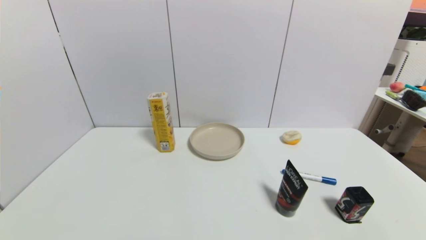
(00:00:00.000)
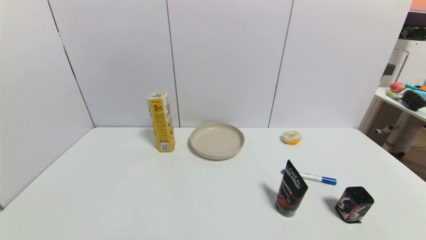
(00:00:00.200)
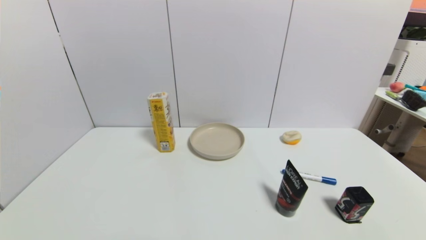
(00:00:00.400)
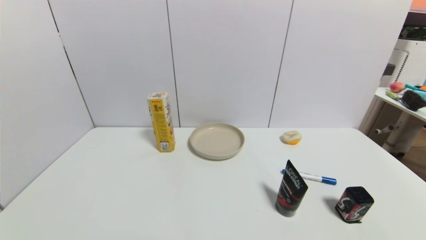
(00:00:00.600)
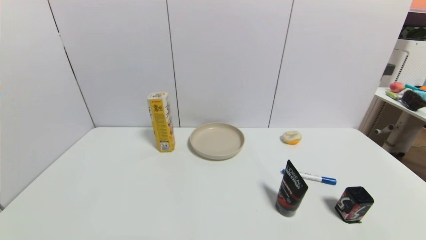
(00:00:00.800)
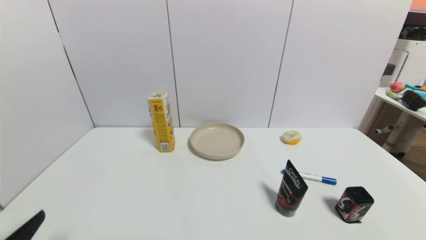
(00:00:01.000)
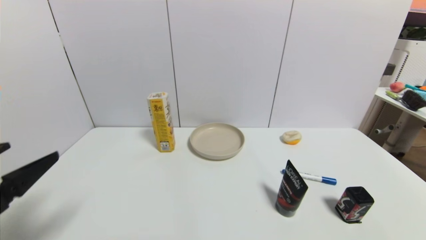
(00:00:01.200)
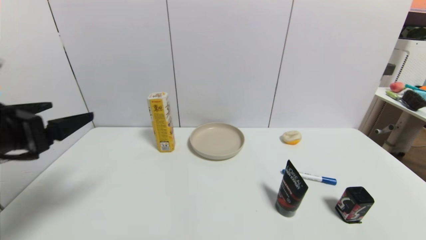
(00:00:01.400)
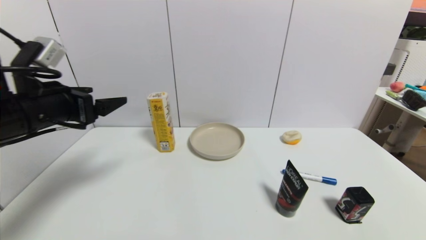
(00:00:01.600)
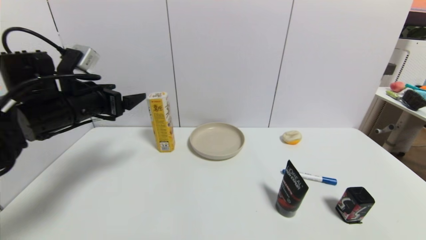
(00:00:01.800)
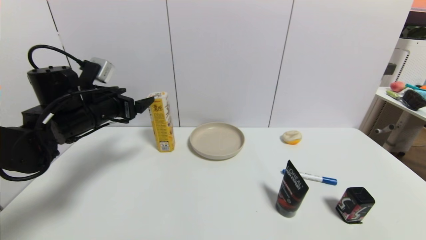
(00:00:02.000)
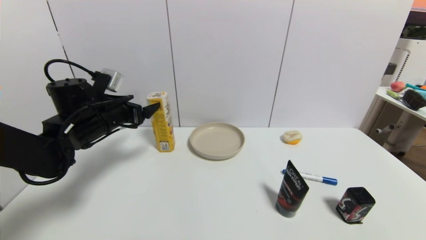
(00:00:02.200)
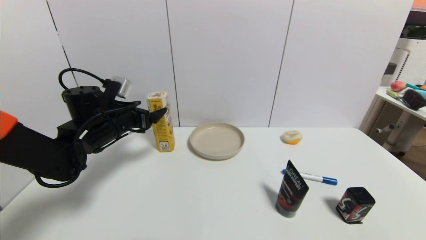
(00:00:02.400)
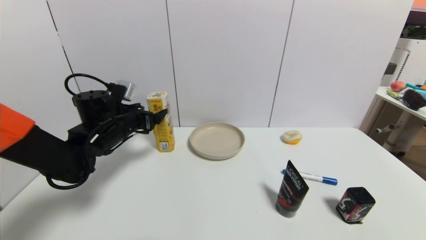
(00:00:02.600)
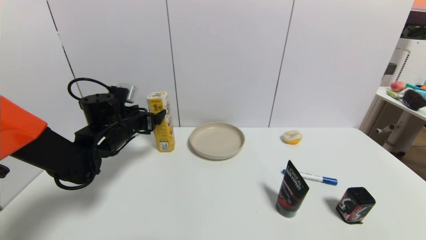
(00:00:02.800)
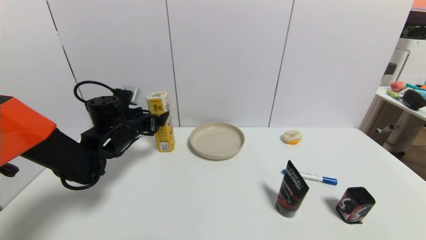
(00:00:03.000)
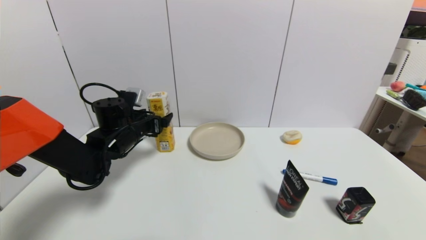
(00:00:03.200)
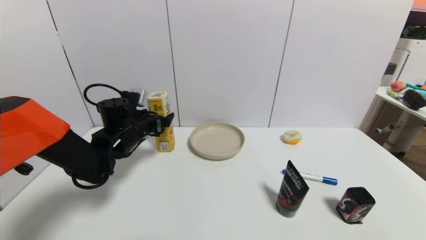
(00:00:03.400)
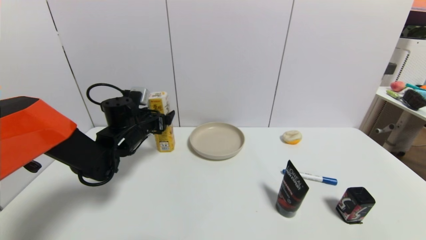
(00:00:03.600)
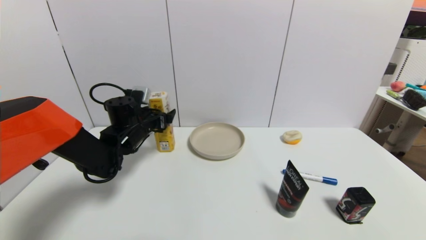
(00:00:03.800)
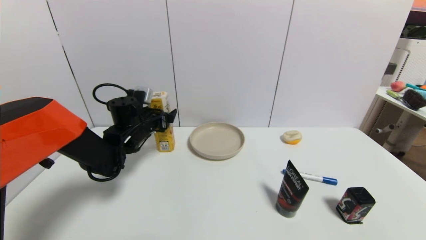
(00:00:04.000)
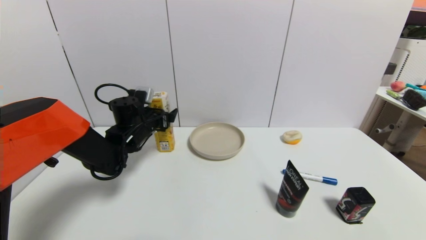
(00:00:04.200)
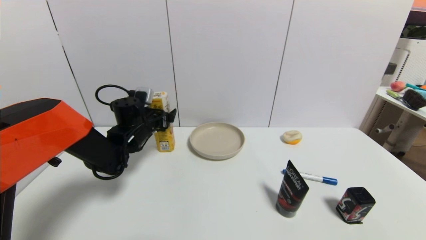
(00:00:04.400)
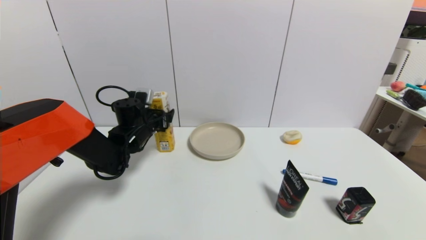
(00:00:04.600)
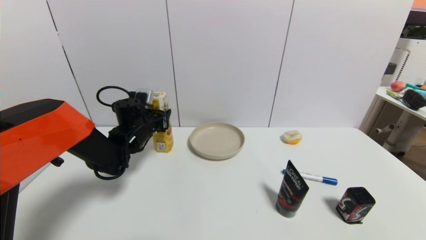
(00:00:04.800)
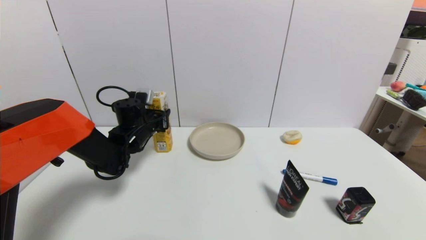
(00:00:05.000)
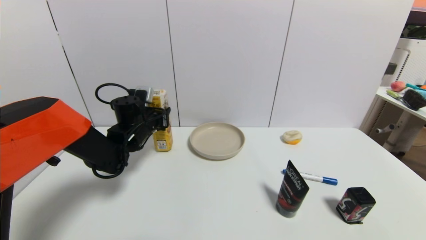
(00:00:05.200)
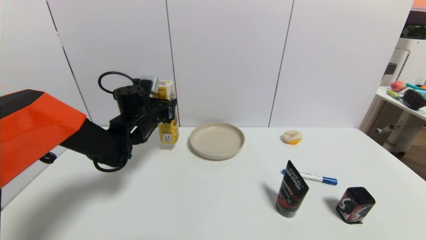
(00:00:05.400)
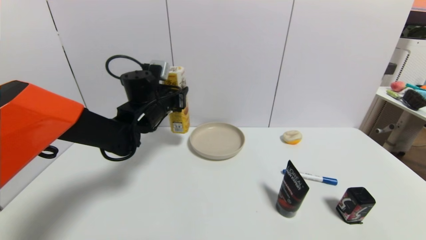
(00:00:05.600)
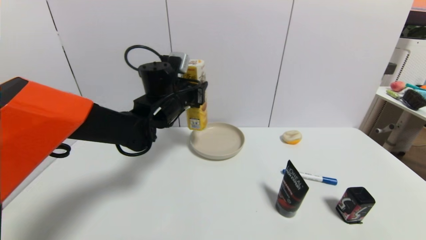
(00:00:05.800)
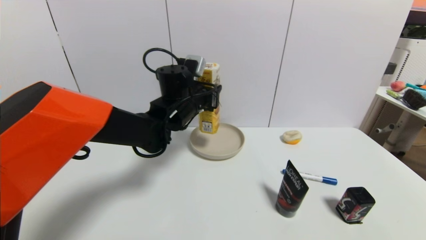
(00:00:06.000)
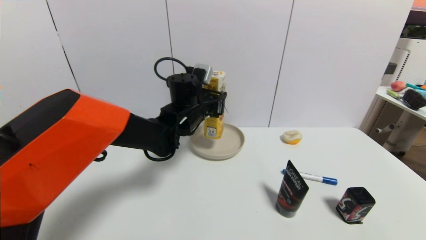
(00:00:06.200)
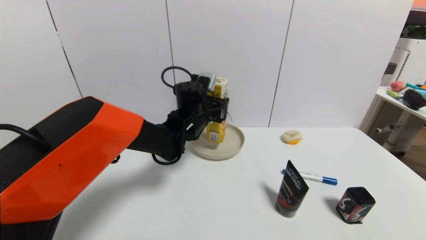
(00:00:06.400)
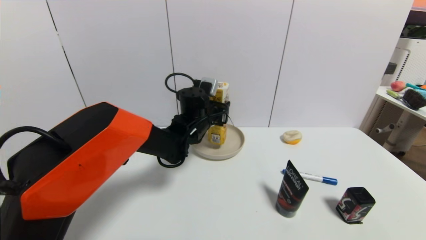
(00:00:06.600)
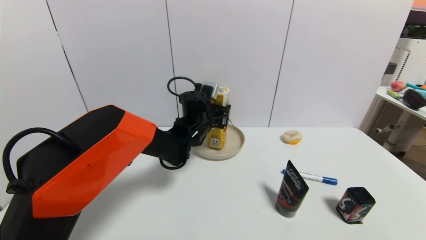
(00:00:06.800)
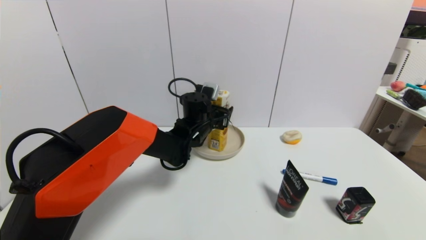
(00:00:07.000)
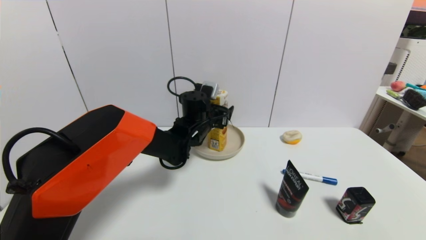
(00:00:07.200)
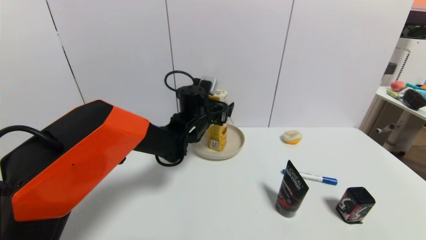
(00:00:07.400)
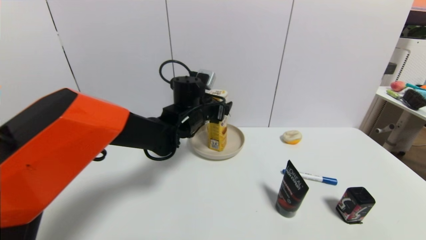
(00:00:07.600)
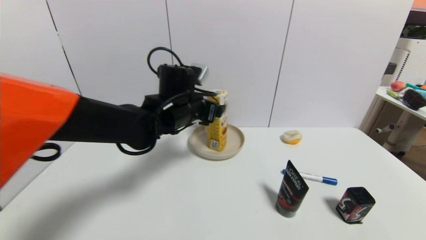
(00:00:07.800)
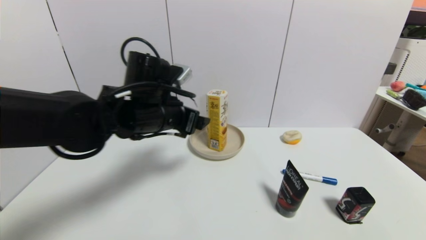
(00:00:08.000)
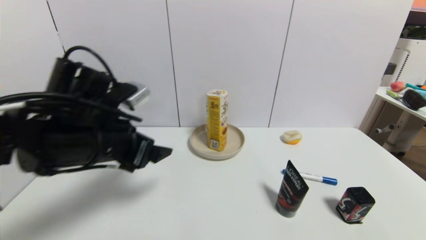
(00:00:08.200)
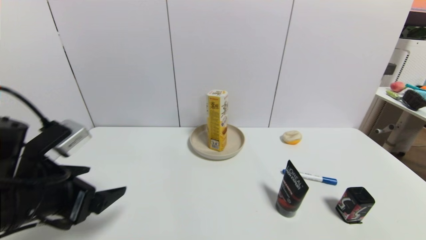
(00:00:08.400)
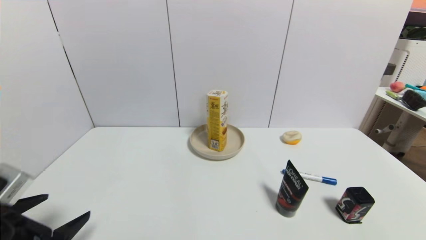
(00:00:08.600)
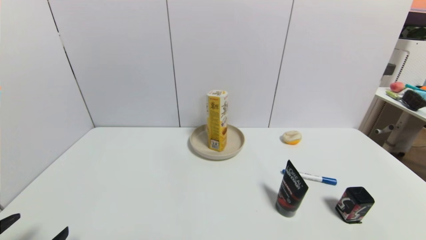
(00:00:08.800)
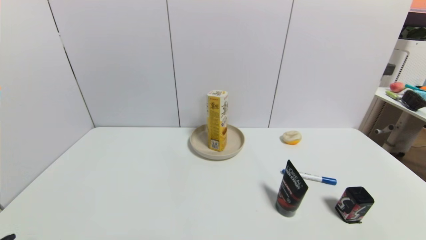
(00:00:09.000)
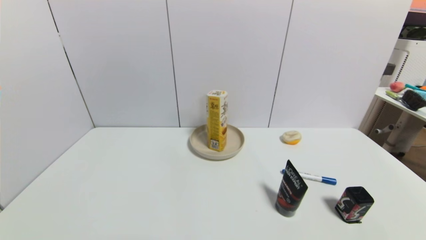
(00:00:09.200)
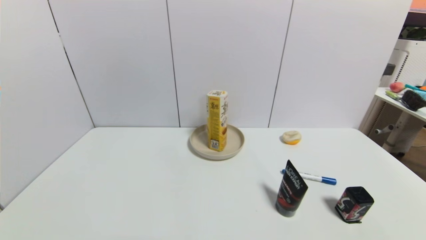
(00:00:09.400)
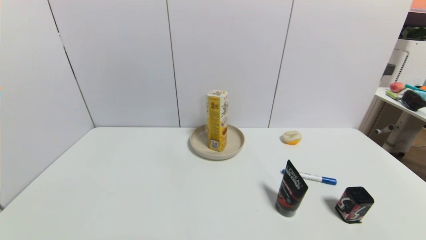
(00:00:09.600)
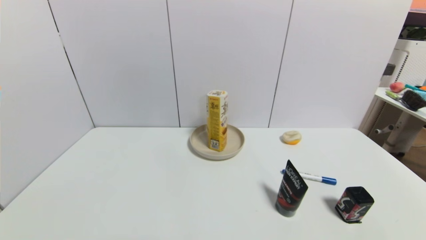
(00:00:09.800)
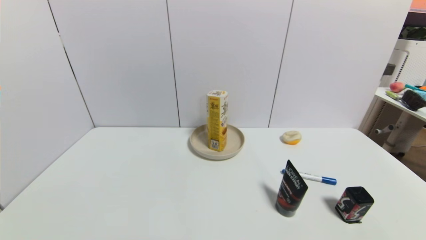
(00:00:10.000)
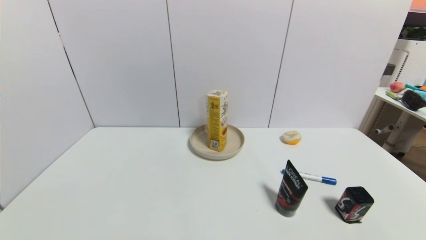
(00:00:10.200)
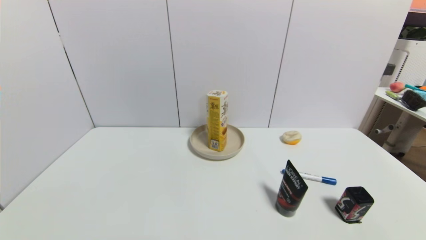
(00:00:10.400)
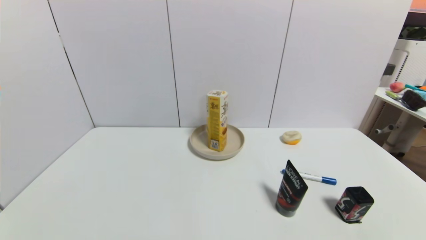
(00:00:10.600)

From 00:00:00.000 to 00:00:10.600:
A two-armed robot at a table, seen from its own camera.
Task of the whole recording: use a gripper to pick the target object and place on the brown plate.
Step, from 00:00:00.000 to 00:00:05.000: Grasp the potato chips with the left gripper.
Step, from 00:00:05.200 to 00:00:07.600: Place the potato chips on the brown plate with the left gripper.
From 00:00:00.000 to 00:00:01.600: The left gripper is displaced forward and upward by about 30 cm.
From 00:00:01.600 to 00:00:03.000: The left gripper is displaced downward, forward and to the right by roughly 20 cm.
From 00:00:03.000 to 00:00:04.600: The left gripper ends up about 5 cm from where it was, and closes up.
From 00:00:04.600 to 00:00:06.000: The left gripper shifts about 15 cm to the right and upward, and closes up.
From 00:00:06.000 to 00:00:07.600: The left gripper opens its fingers.
From 00:00:07.600 to 00:00:09.000: The left gripper goes approximately 40 cm backward and to the left.
